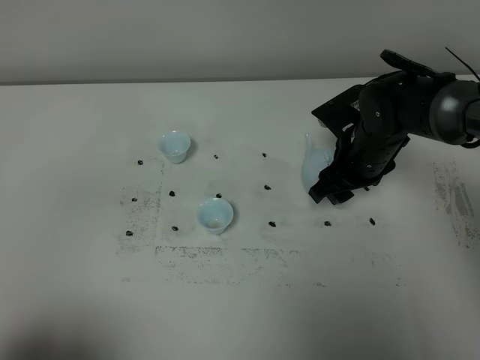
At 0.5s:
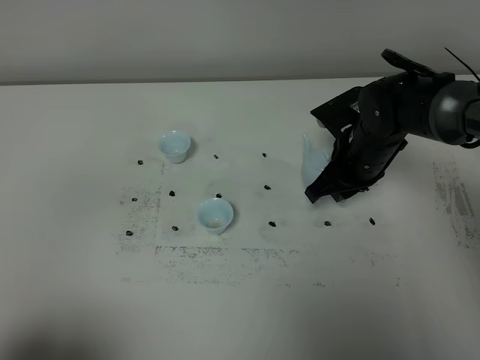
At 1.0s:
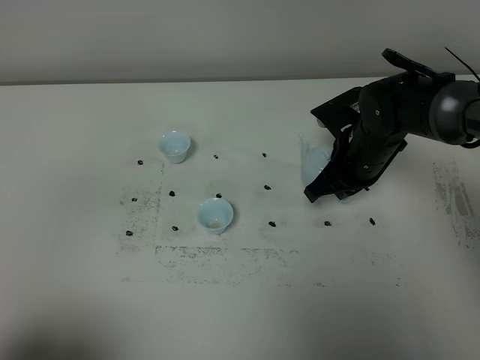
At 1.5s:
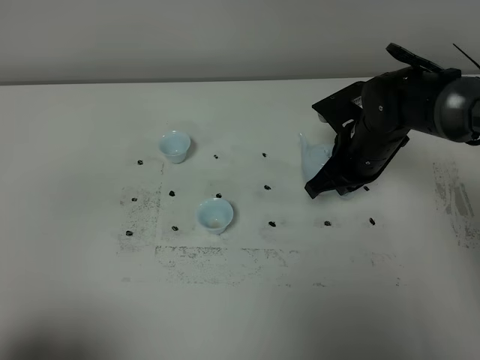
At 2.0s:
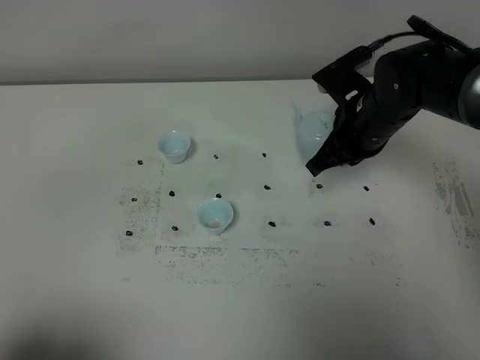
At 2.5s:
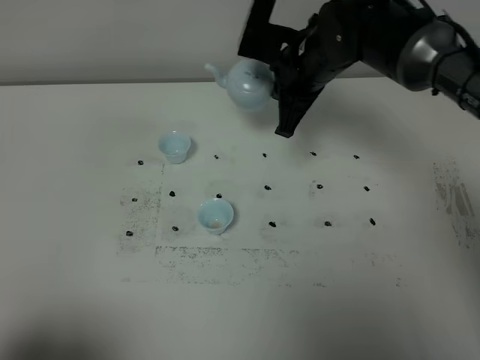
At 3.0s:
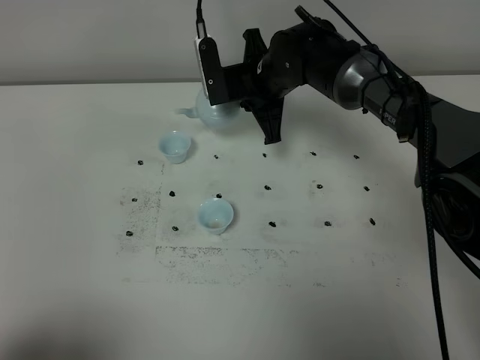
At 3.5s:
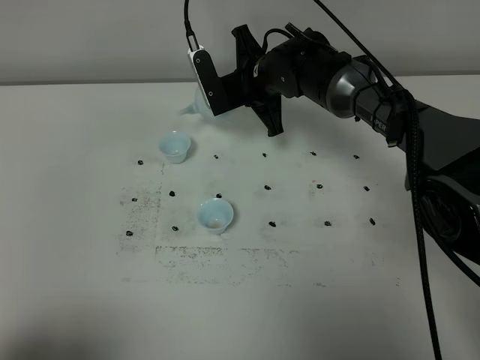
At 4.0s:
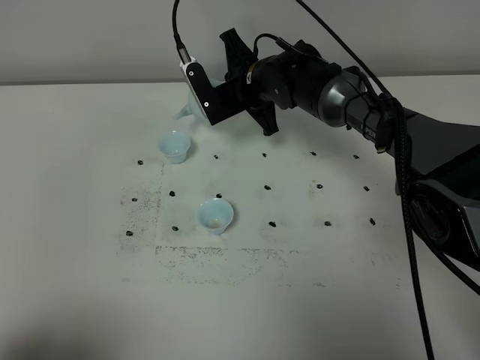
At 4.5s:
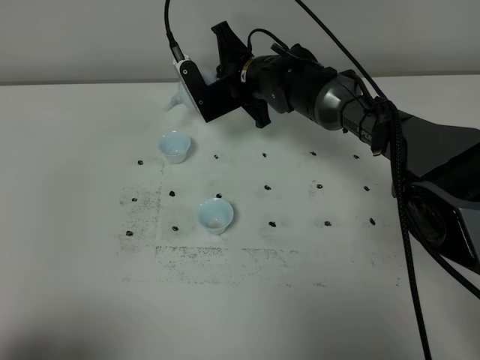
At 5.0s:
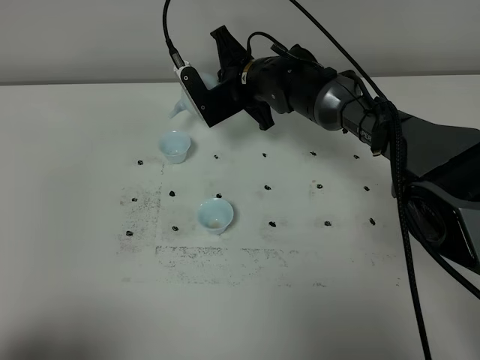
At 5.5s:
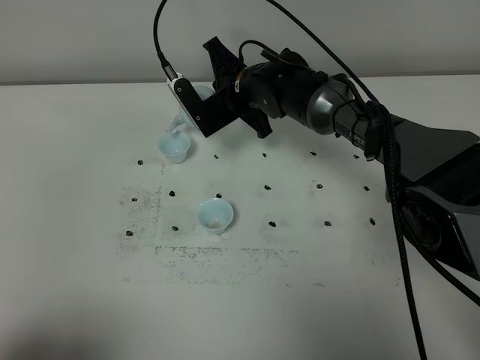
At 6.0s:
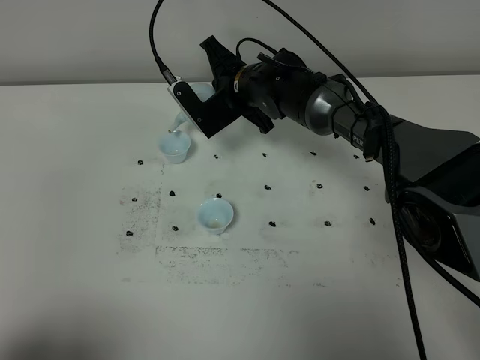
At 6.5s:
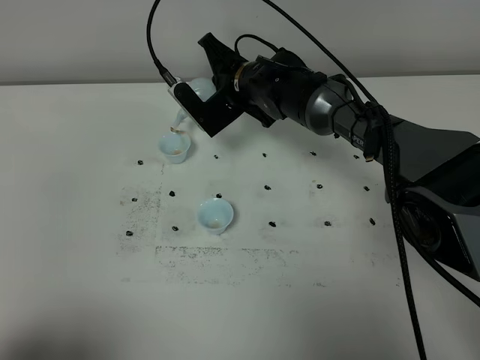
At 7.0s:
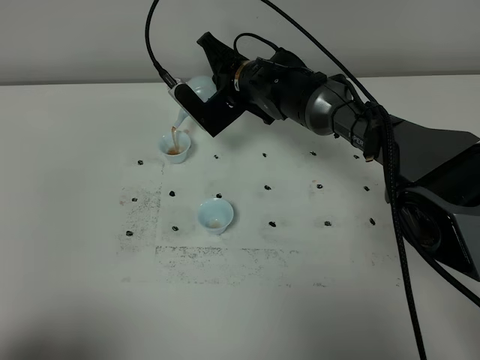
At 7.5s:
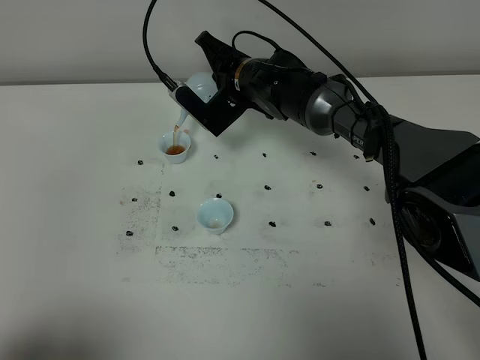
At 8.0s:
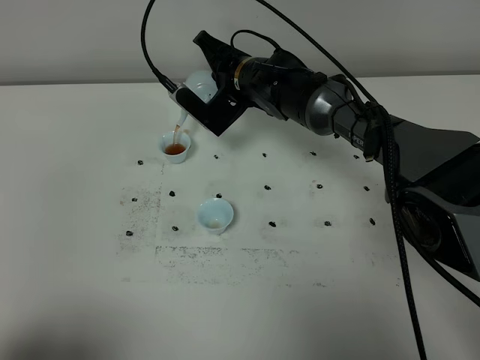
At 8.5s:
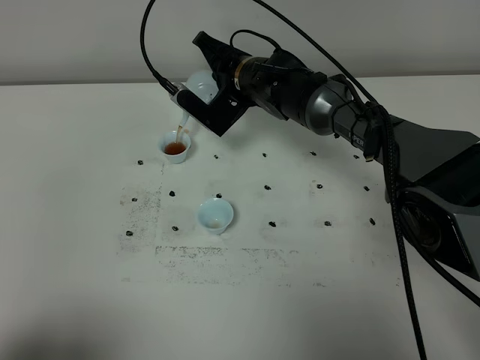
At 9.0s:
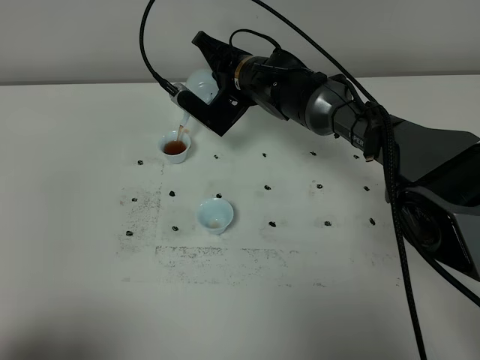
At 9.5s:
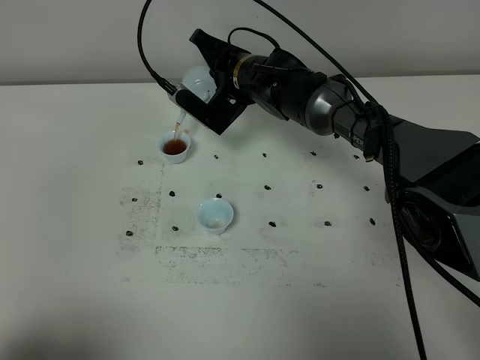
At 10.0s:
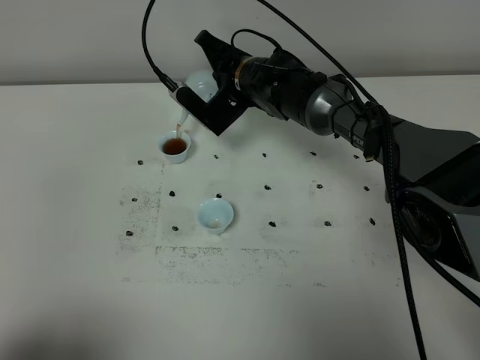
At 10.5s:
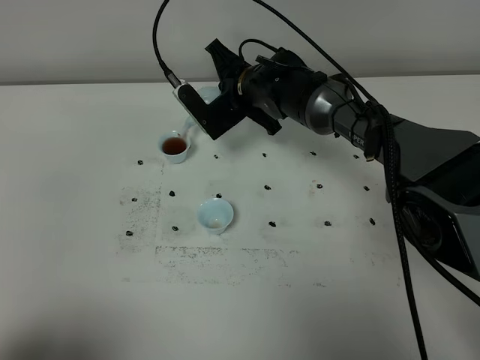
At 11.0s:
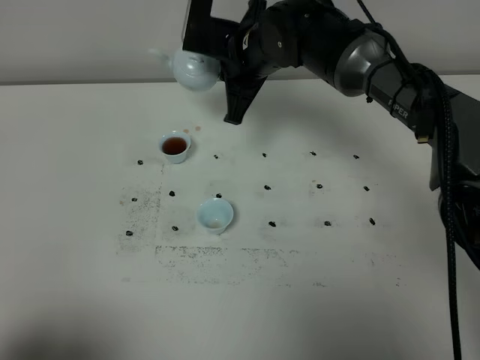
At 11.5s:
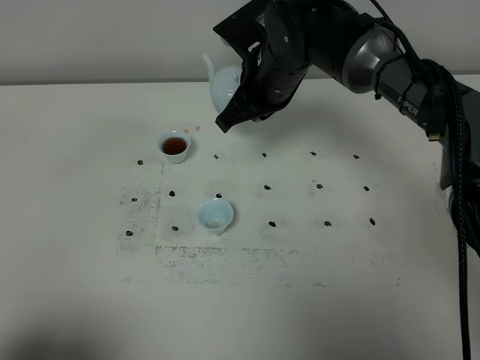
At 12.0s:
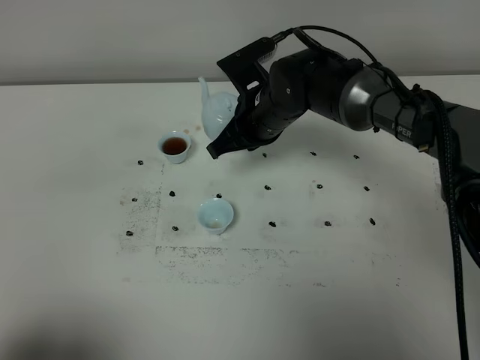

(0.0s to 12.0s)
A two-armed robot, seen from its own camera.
Task of the whole recording: grasp the blue porcelain teapot and pour the tea into the two blue porcelain teacups one by one, put the blue porcelain teapot back in its original place.
0.0s - 2.0s: The right gripper is displaced upward by approximately 5 cm, and closes.
2.0s - 4.0s: The right gripper heads to the left and forward, covering roughly 15 cm.
4.0s - 6.0s: The grippers stay close to where they were, moving slightly.
6.0s - 8.0s: The grippers stay close to where they were, moving slightly.
8.0s - 10.0s: Neither gripper changes place.
10.0s - 12.0s: The right gripper is displaced backward by some 5 cm, and goes upward and returns, some 10 cm each way.

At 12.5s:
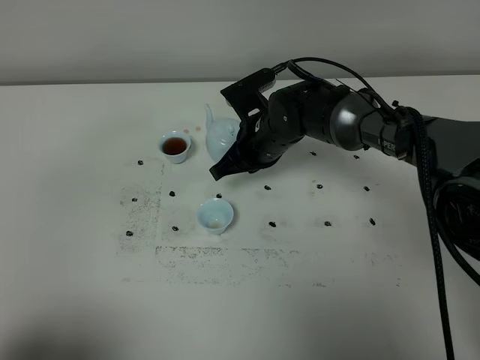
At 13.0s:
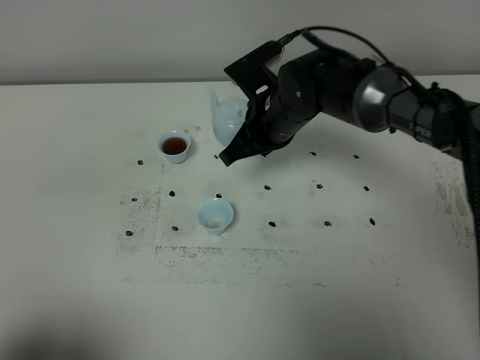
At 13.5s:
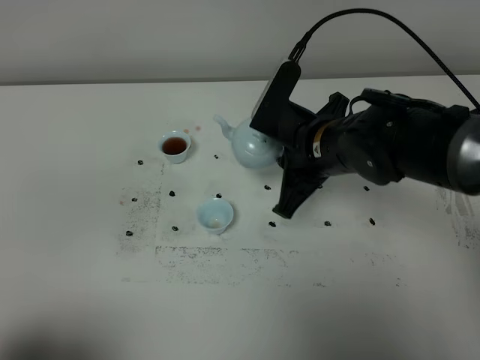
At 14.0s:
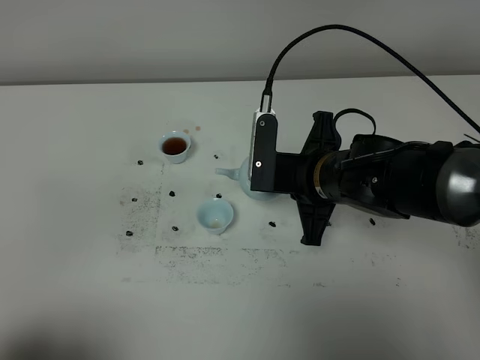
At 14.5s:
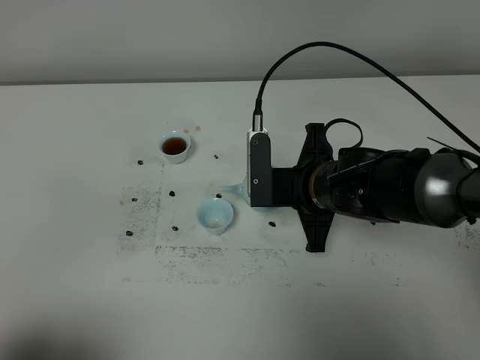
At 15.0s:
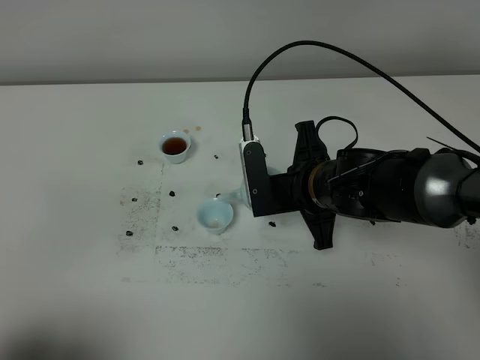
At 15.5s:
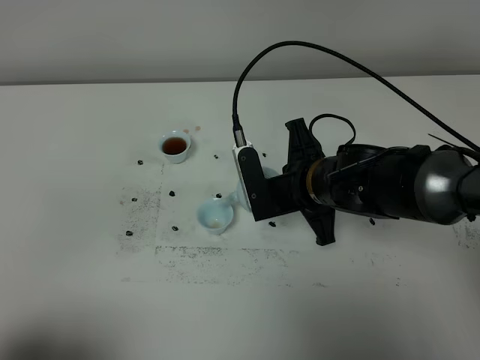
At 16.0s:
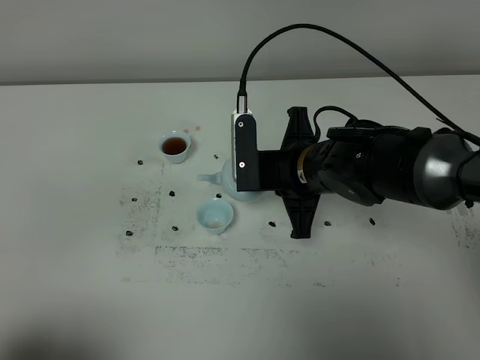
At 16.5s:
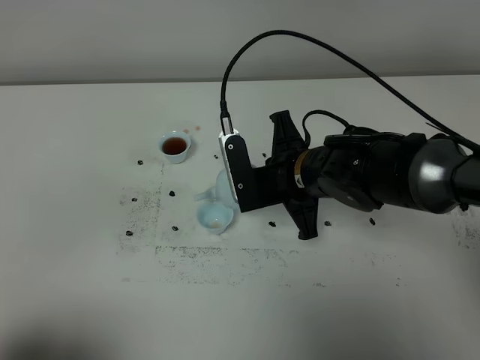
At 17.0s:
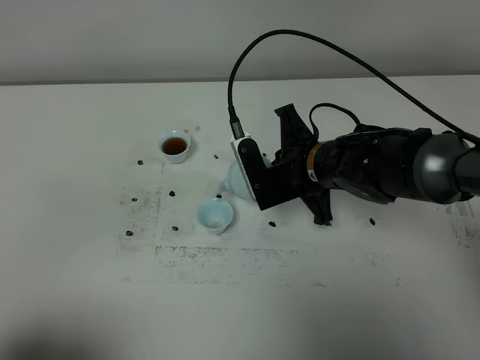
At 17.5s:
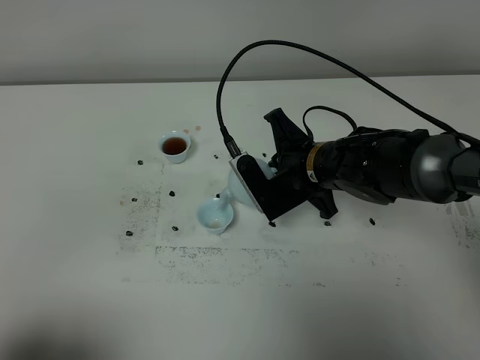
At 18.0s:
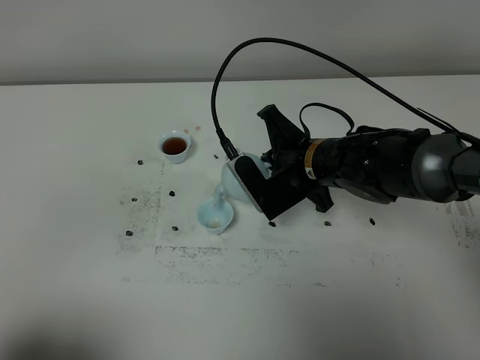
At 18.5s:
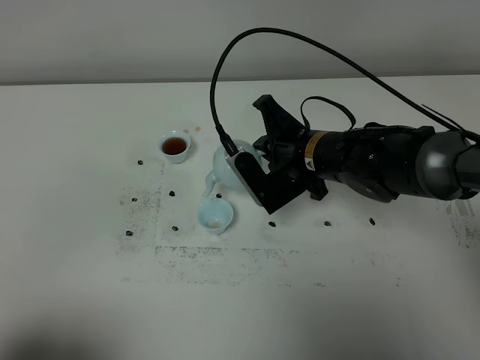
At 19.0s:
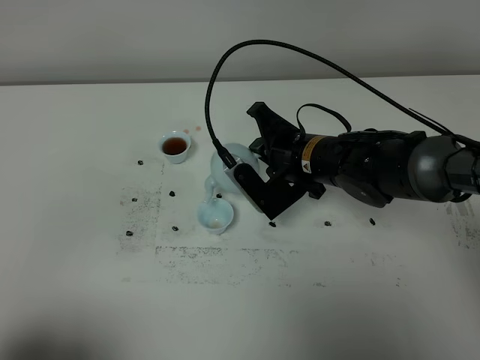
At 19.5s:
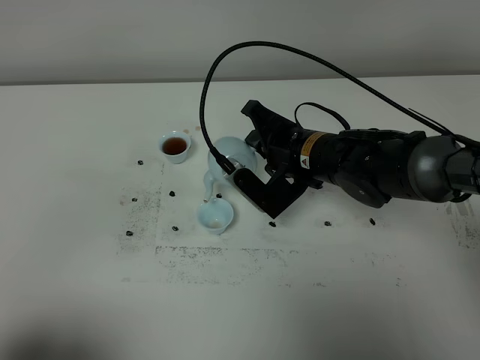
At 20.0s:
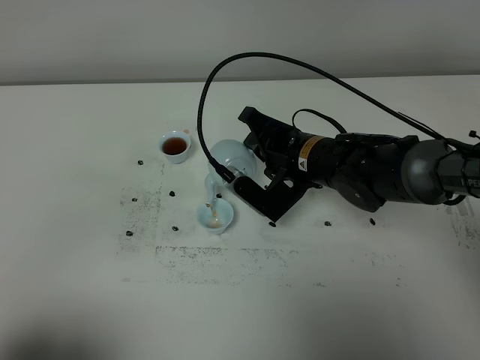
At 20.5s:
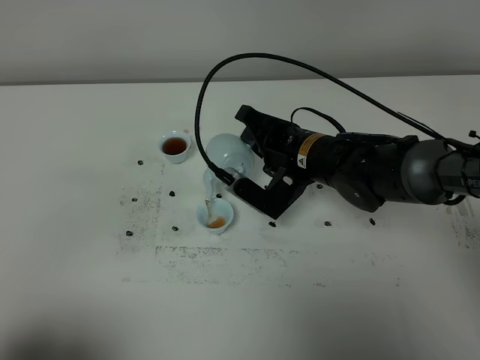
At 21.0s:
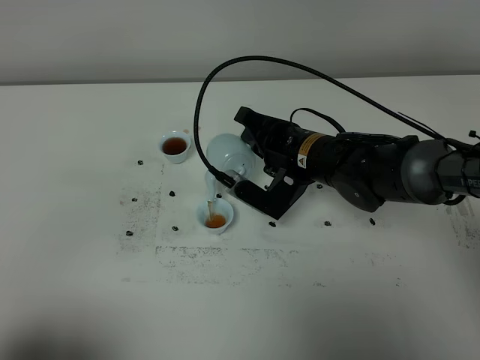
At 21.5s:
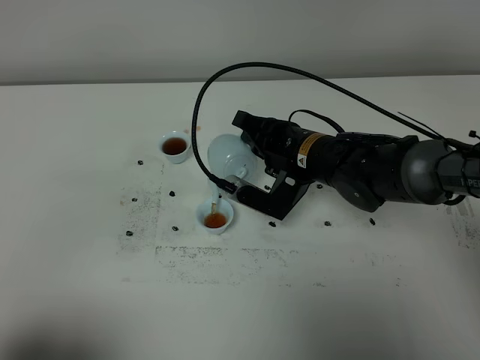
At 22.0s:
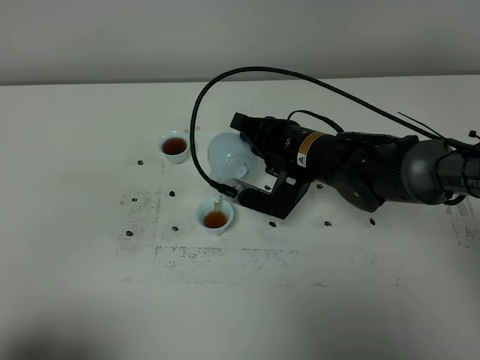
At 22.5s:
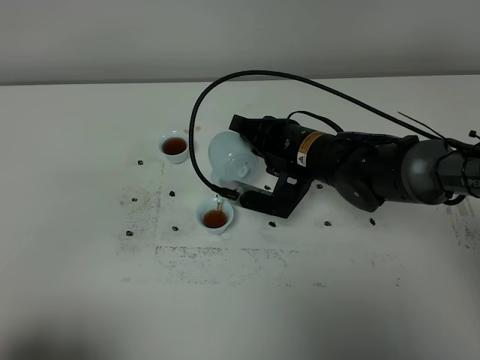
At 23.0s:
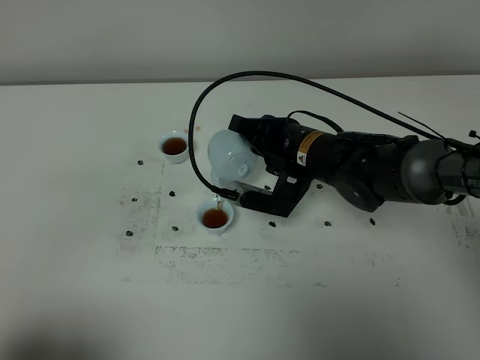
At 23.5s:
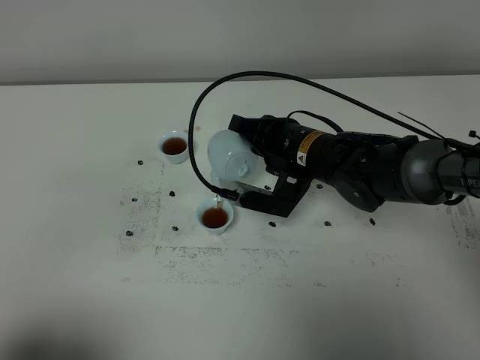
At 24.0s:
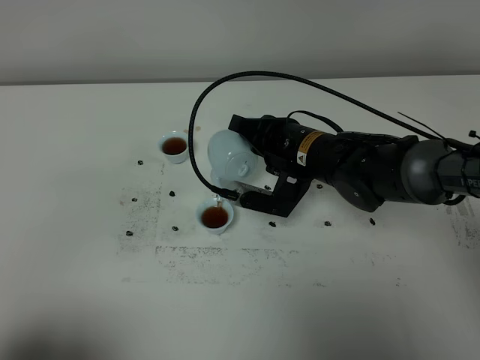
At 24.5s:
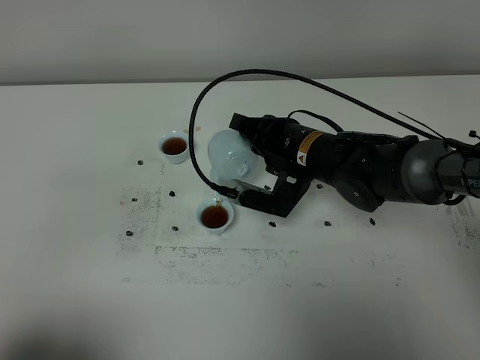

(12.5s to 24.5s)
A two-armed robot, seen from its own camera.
Task of the whole recording: grasp the blue porcelain teapot and pour the tea into the two blue porcelain teacups one by one, put the blue porcelain teapot back in its original place.
12.5s - 14.5s: The right gripper travels backward and to the right by about 10 cm.
14.5s - 16.5s: There are only small adjustments of the grippers.
20.5s - 22.5s: There are only small adjustments of the grippers.
22.5s - 24.5s: Both grippers stay about where they are.

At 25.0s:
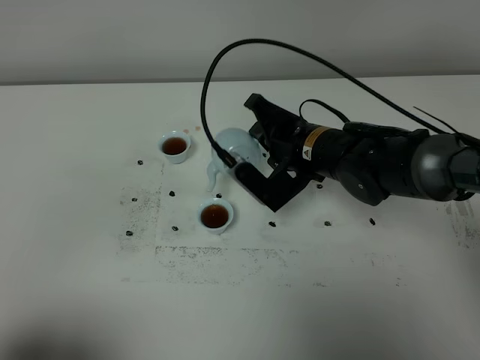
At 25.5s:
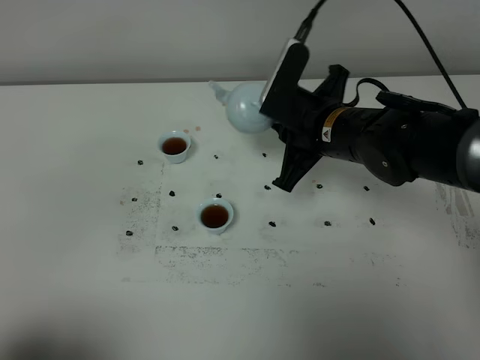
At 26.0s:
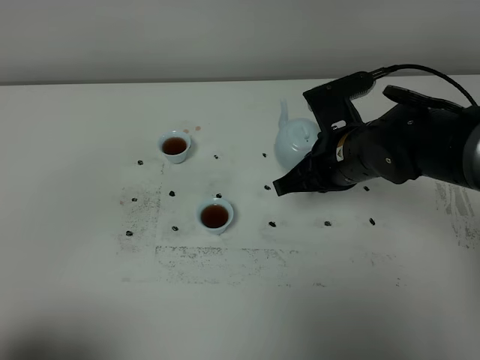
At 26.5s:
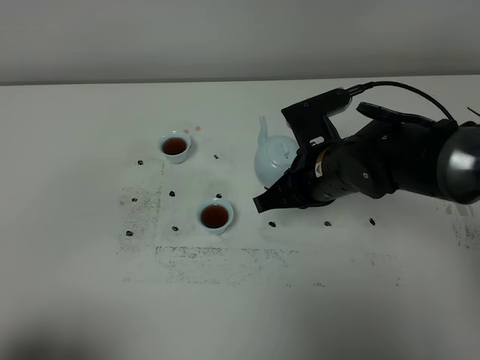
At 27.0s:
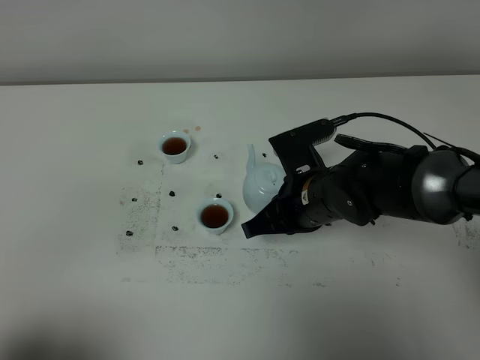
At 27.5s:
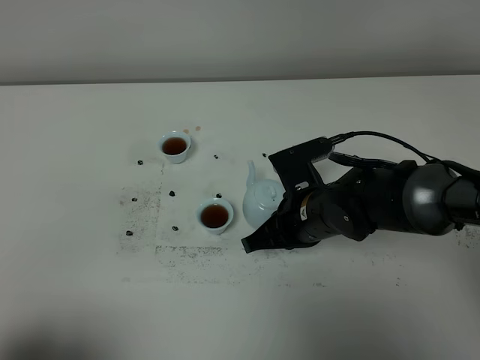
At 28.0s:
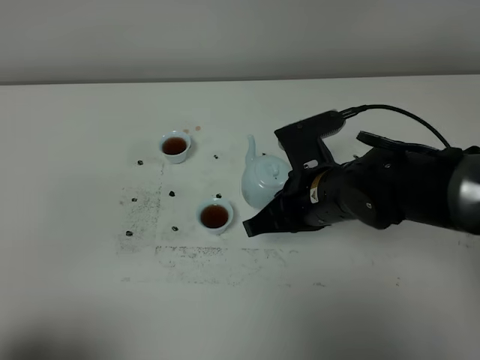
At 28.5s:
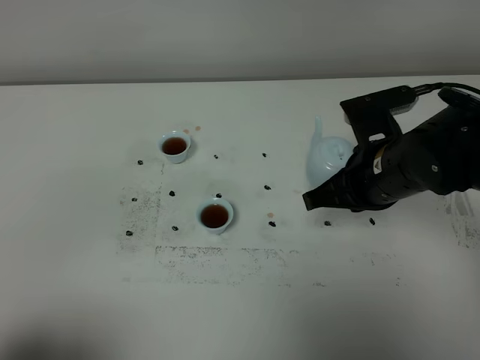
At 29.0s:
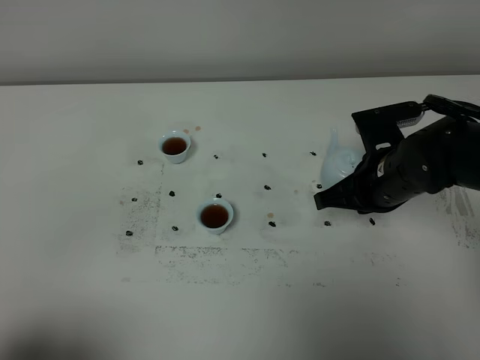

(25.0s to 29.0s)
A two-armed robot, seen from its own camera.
Task of the whole recording: grasp the blue porcelain teapot and pour the tea into the two blue porcelain teacups one by one, put the blue porcelain teapot back in its original place.
25.0s - 27.0s: The right gripper travels backward by approximately 5 cm.
27.0s - 29.0s: The right gripper travels to the right by about 10 cm.
